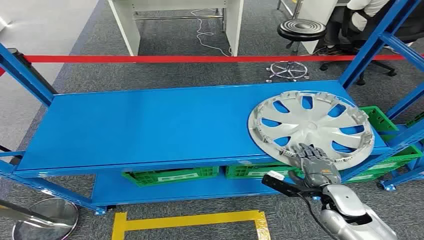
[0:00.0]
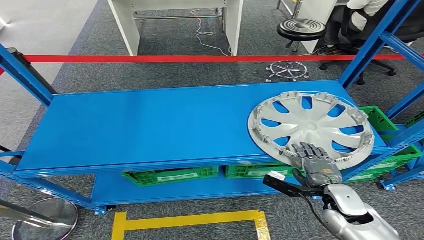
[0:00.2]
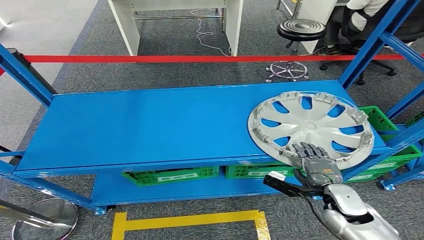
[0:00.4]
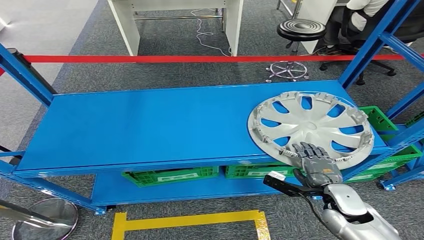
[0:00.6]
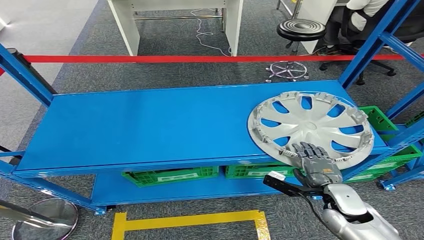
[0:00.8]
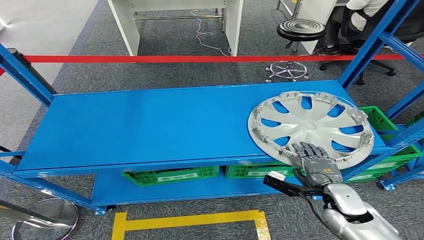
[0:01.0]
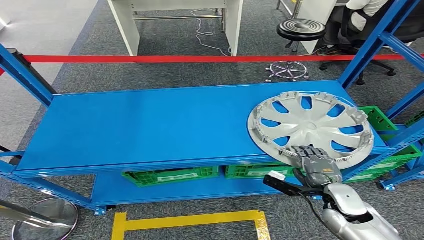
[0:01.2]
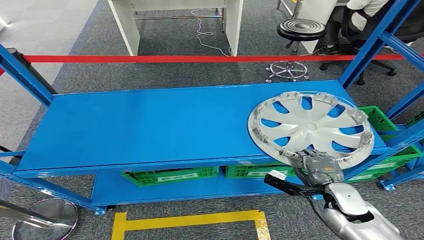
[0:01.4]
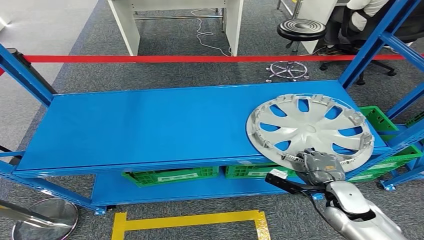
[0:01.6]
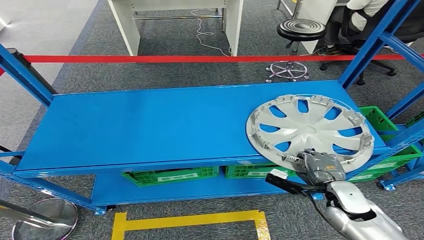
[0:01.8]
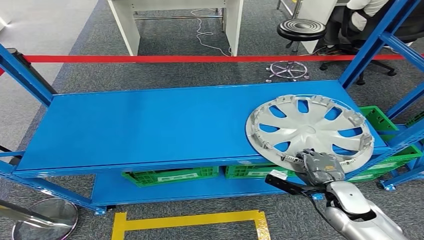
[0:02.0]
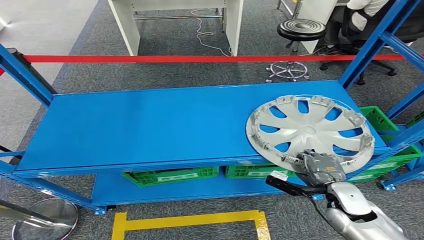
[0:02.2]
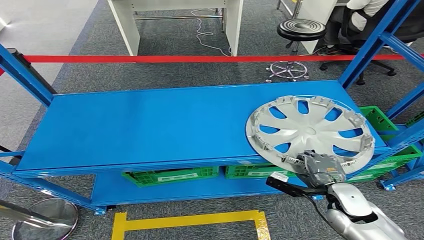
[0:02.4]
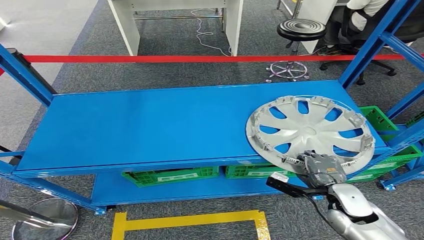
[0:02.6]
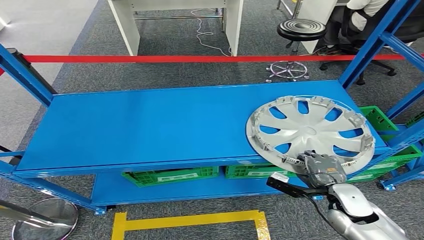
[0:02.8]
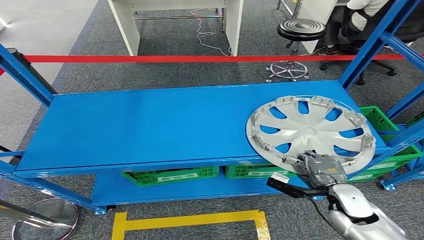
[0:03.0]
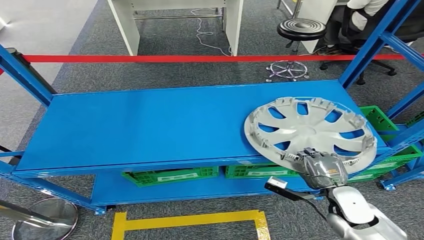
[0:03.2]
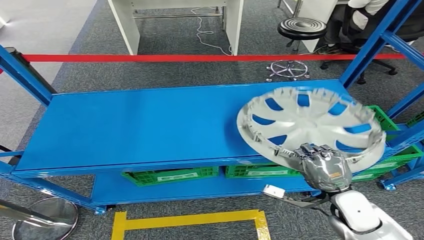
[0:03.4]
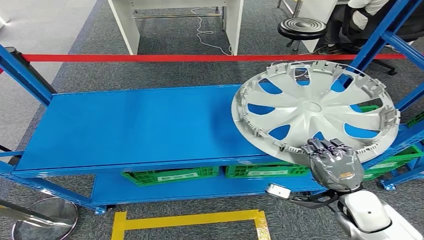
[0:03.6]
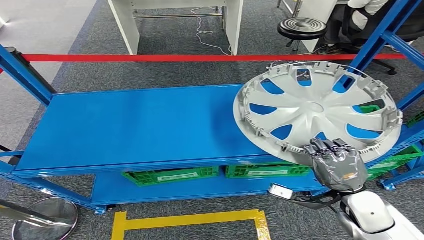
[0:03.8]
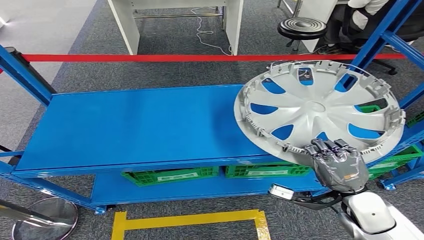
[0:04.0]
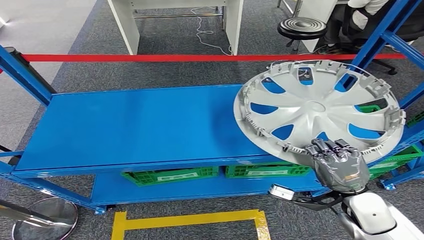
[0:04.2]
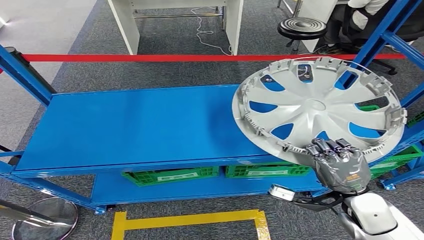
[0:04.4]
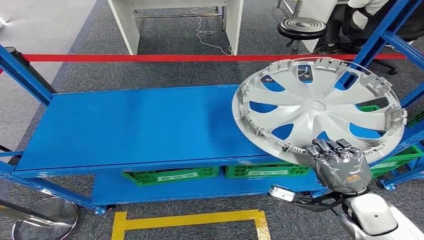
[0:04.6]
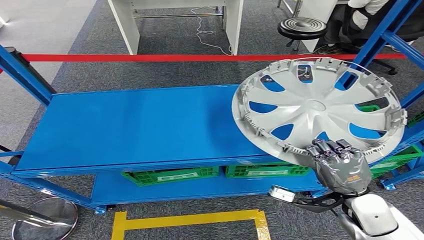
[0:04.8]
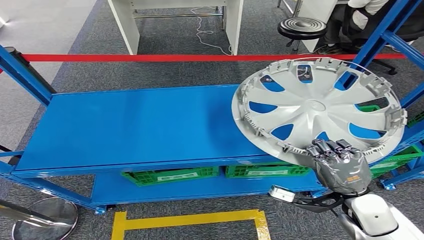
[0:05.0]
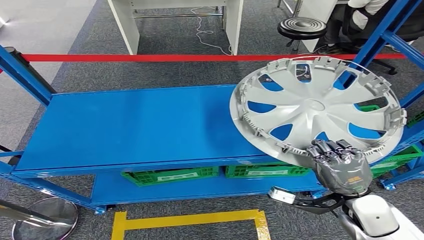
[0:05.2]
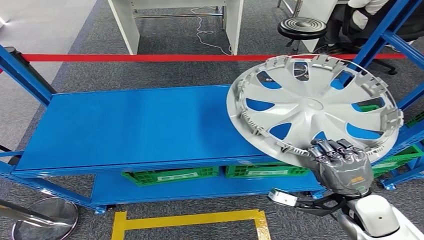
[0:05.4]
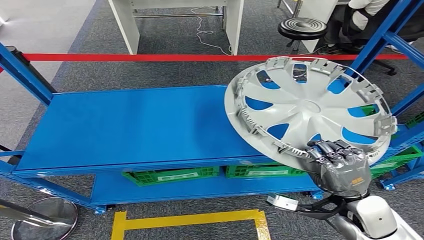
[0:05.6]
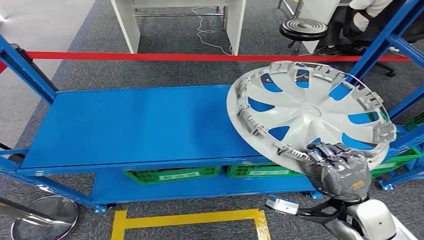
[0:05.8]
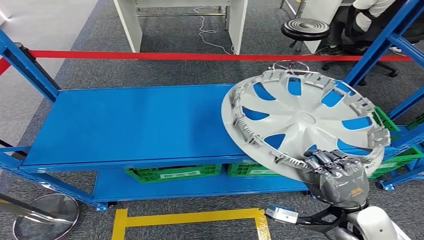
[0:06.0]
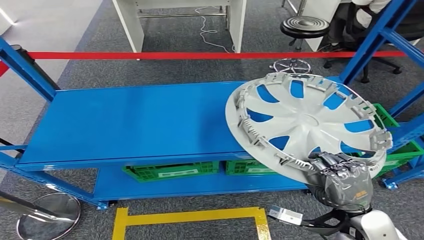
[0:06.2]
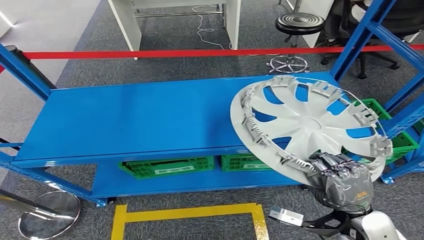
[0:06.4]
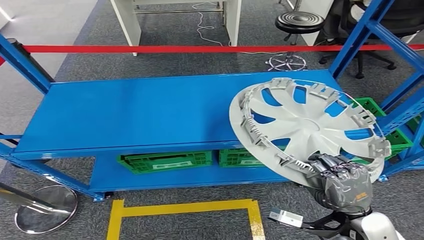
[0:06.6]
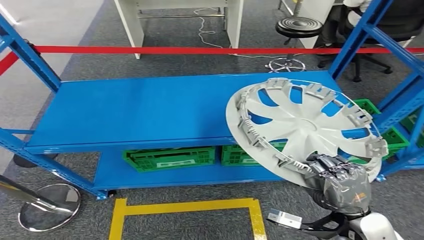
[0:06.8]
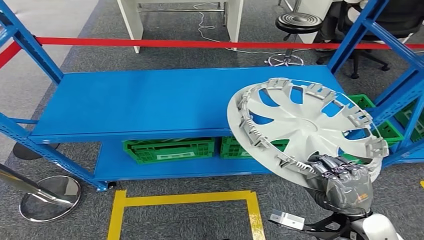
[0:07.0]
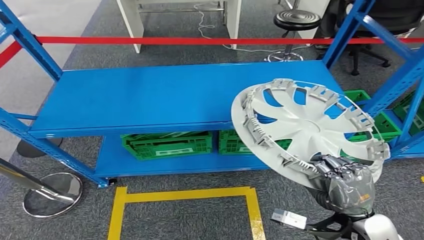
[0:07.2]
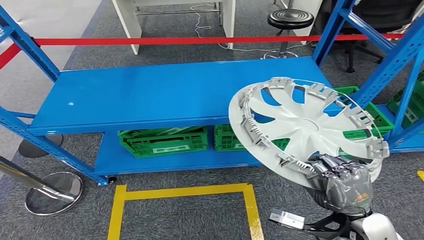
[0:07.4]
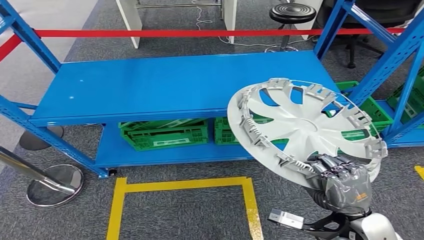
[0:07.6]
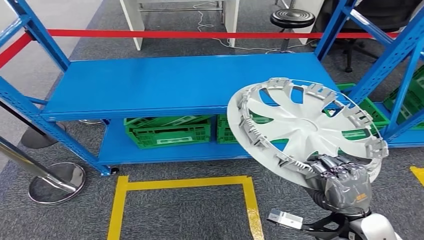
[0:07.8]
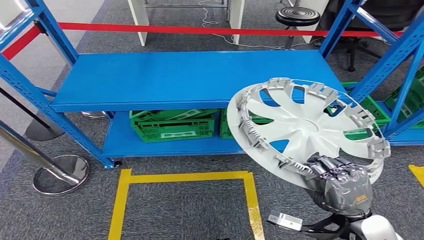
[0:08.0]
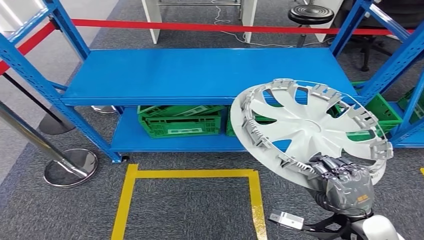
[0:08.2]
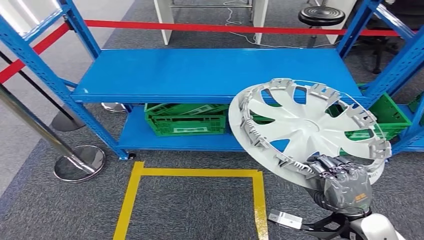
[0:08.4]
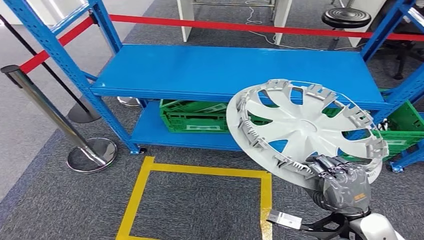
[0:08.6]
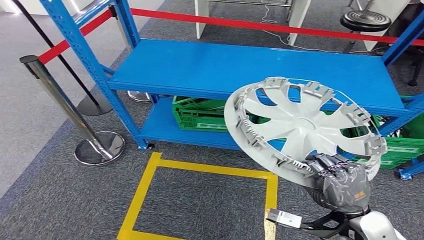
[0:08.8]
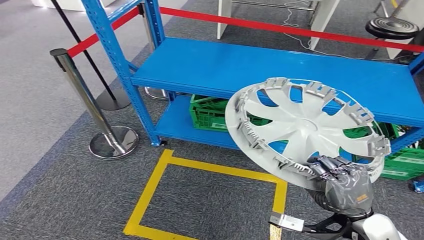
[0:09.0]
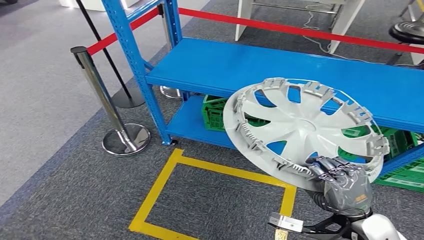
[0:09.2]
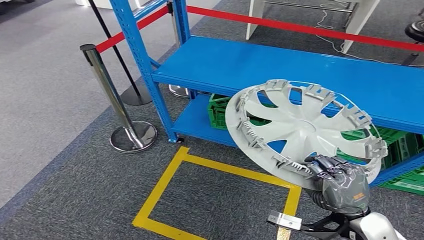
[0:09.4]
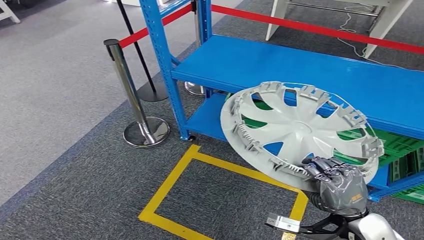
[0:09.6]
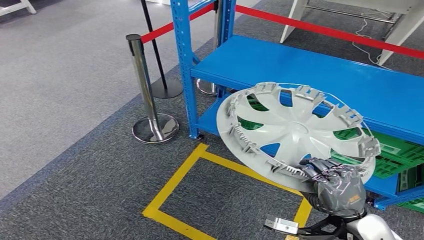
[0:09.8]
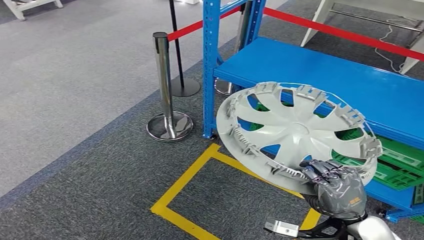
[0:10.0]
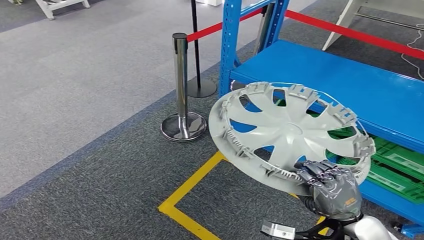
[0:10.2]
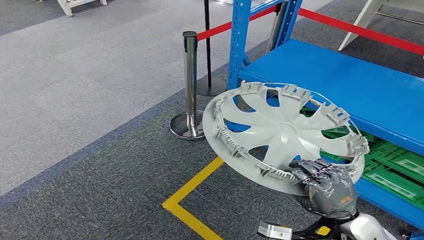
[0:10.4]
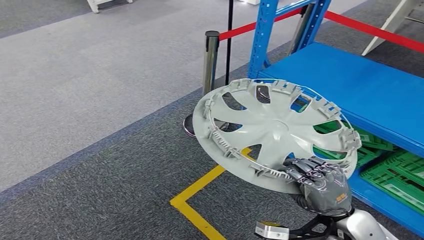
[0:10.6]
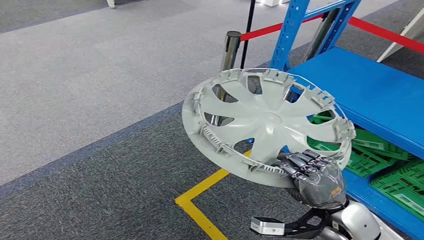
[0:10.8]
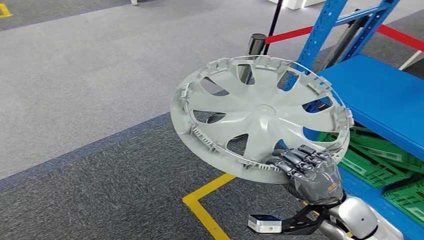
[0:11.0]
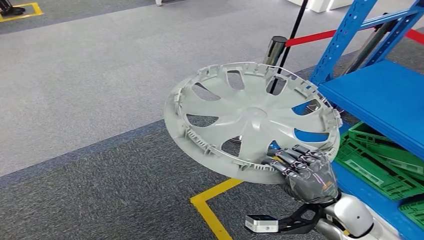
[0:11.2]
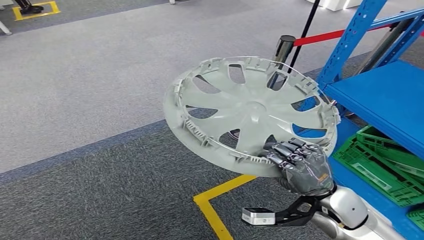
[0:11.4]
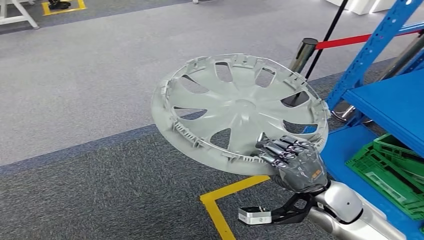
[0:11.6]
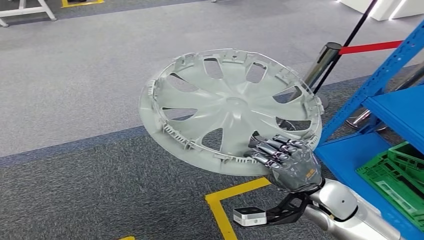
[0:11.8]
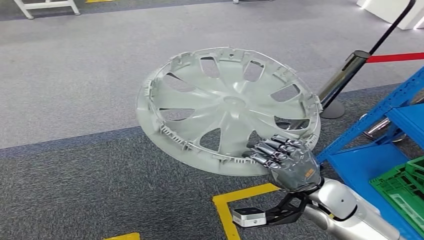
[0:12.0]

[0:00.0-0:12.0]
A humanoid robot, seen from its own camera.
Step, 0.0 to 3.4 s: Pick up the small parts from the shelf.
1.6 to 3.0 s: The hands make only small movements.

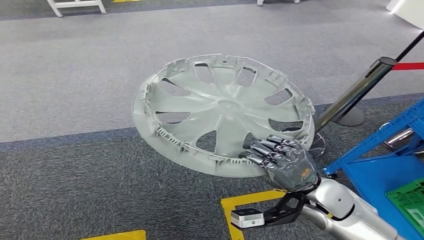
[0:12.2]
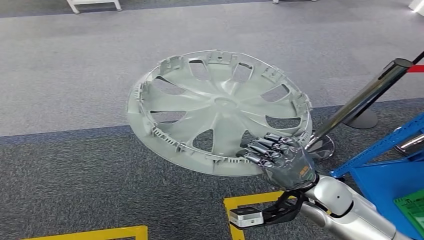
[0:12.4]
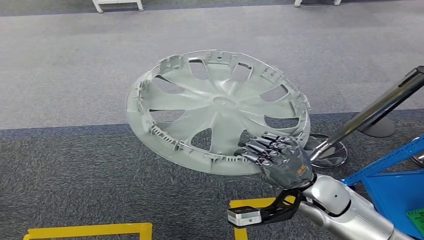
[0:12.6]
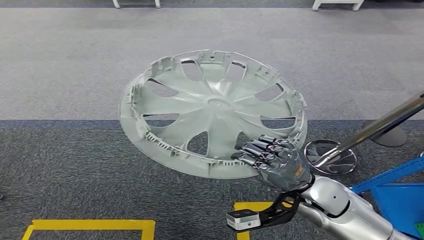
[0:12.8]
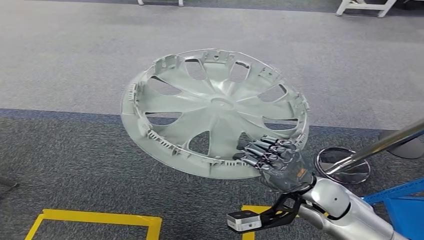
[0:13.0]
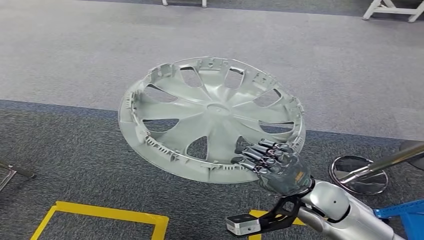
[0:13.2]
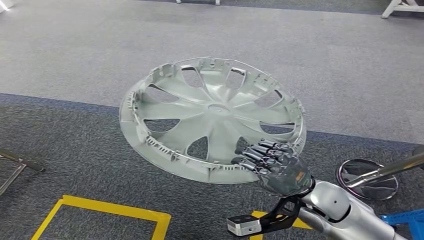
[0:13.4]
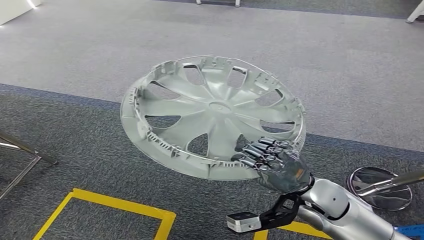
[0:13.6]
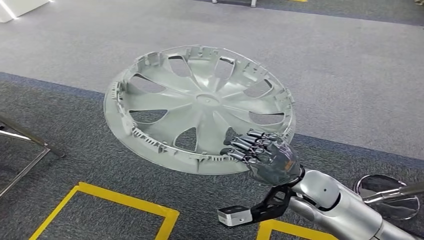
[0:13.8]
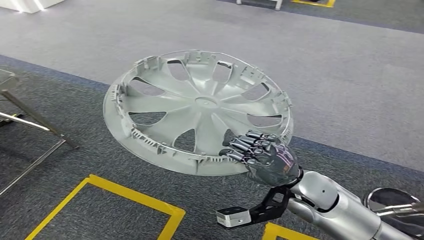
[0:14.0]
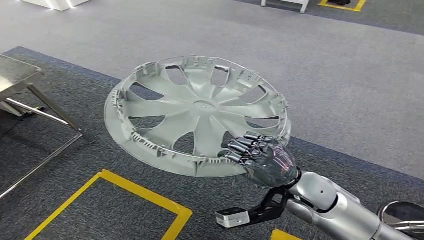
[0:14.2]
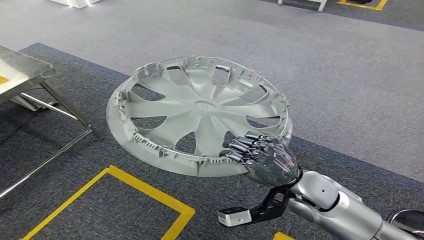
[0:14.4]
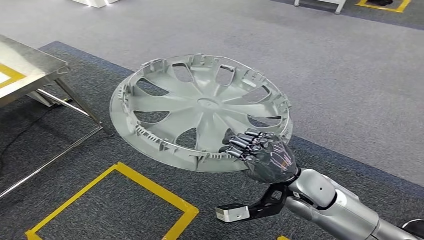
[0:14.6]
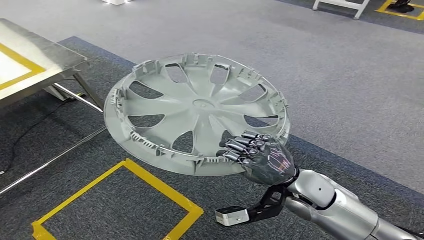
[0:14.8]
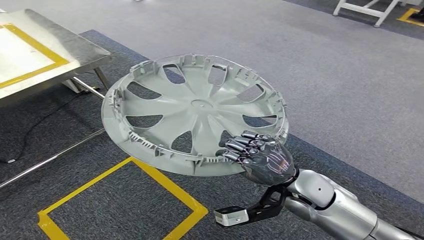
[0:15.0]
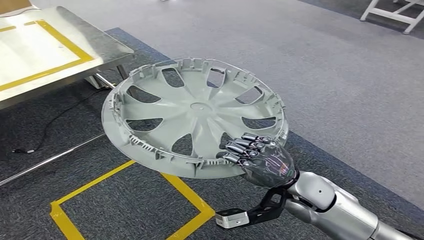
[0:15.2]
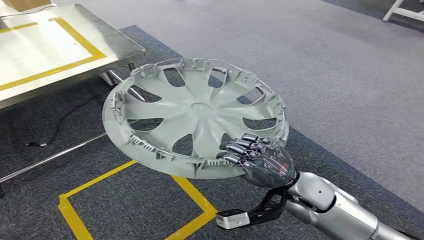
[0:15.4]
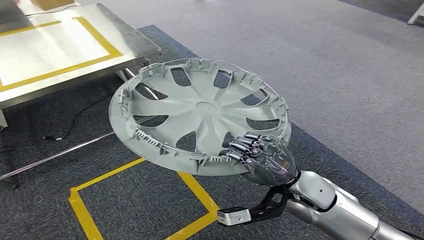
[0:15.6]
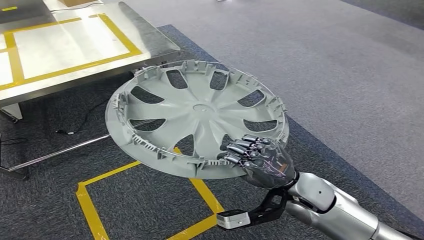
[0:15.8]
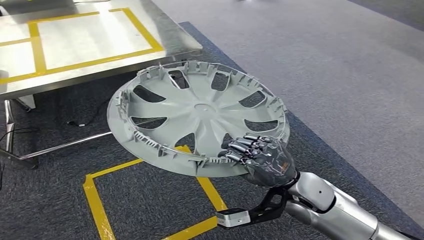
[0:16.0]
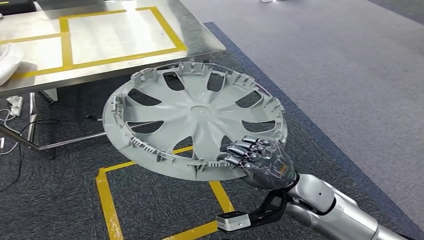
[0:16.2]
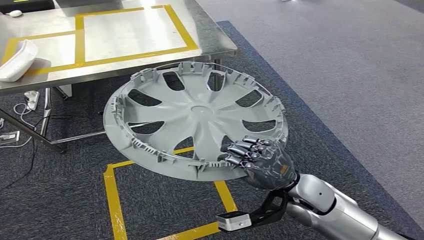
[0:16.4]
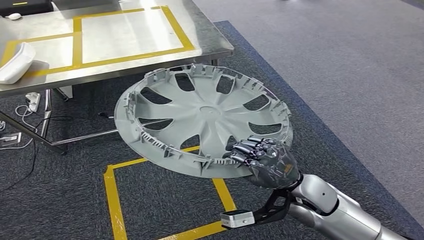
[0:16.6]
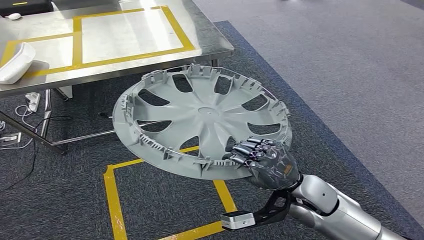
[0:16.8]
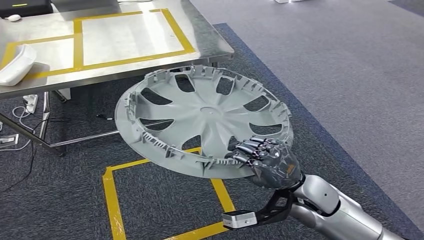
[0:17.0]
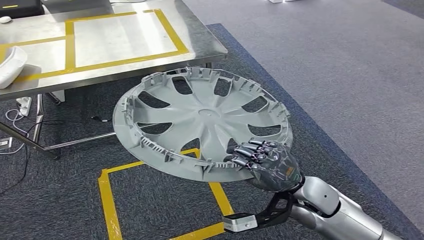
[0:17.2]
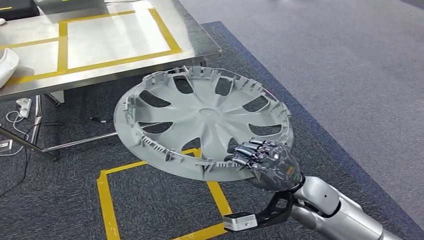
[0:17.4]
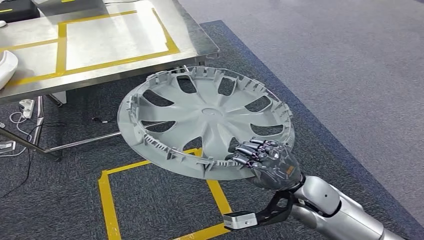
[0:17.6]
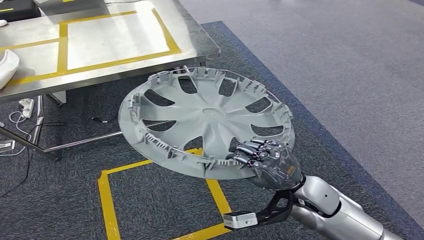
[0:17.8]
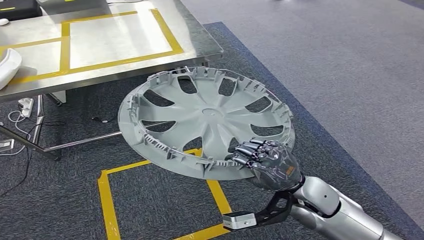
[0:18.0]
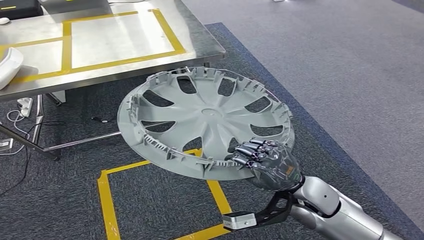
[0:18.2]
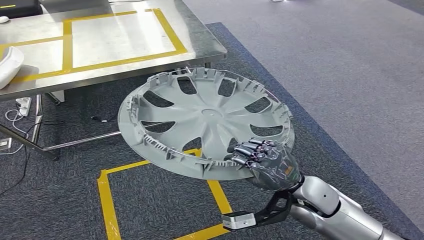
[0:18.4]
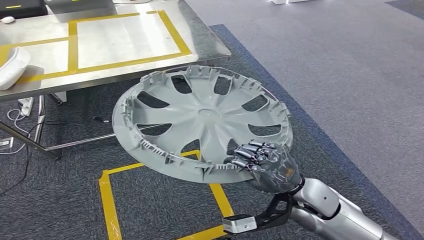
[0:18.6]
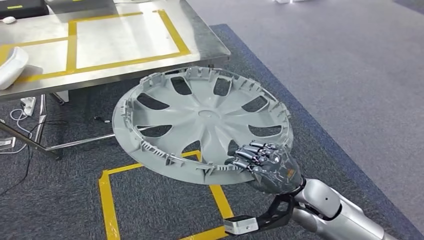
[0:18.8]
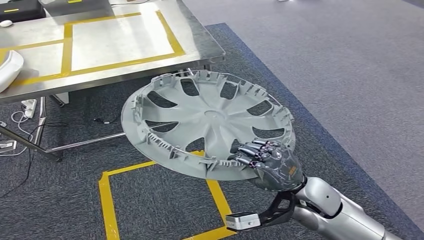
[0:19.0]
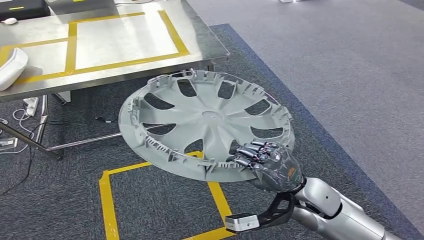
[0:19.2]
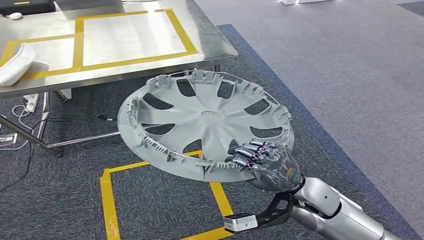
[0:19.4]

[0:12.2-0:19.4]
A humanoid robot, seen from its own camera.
Step, 12.2 to 16.6 s: Move the small parts to the workbench.
18.0 to 19.4 s: The two hands keep their place.
